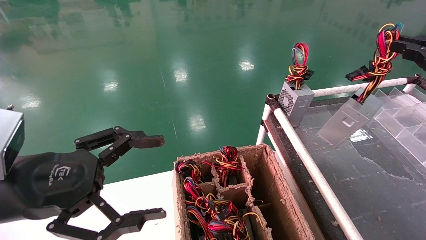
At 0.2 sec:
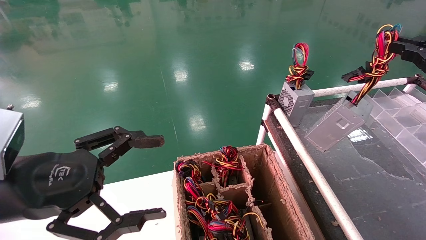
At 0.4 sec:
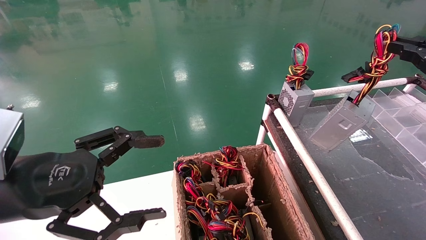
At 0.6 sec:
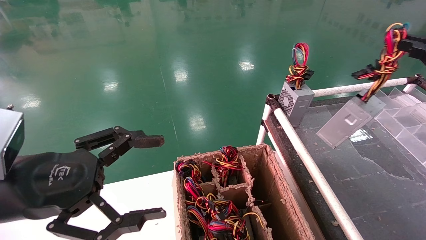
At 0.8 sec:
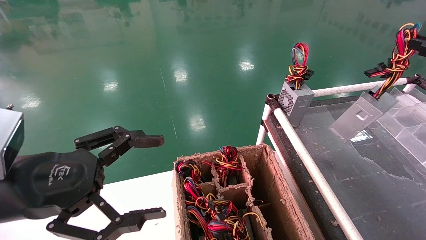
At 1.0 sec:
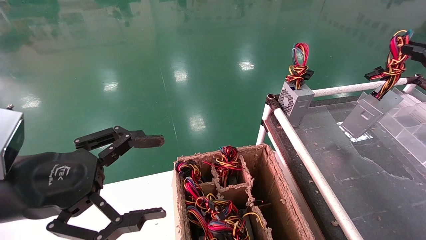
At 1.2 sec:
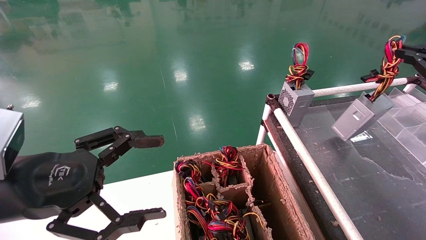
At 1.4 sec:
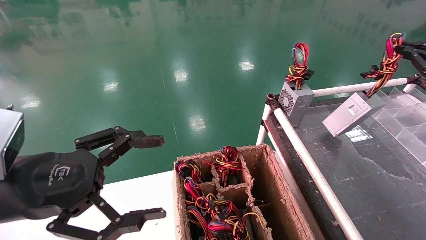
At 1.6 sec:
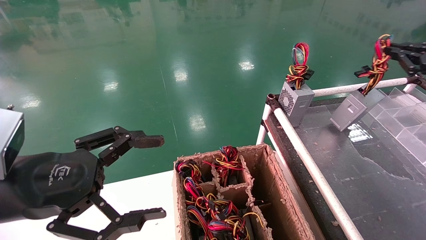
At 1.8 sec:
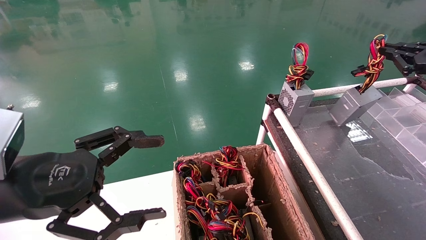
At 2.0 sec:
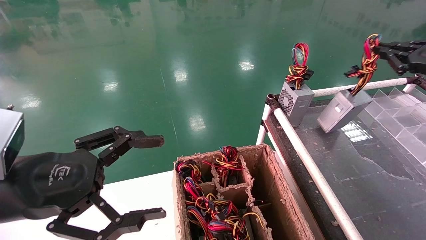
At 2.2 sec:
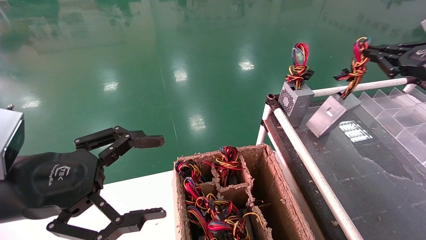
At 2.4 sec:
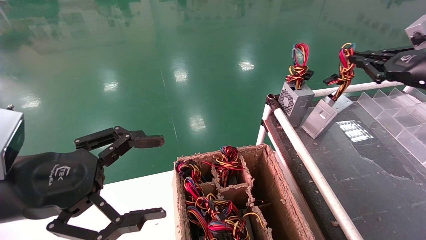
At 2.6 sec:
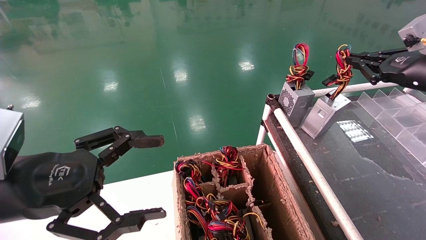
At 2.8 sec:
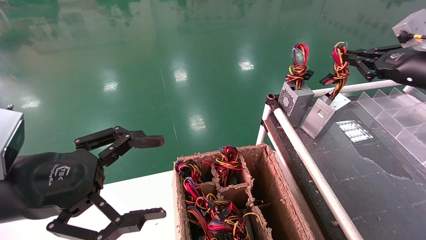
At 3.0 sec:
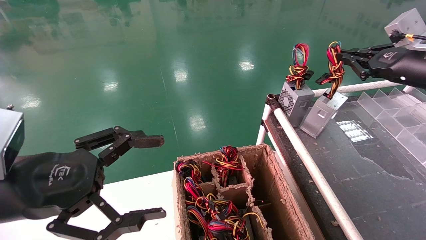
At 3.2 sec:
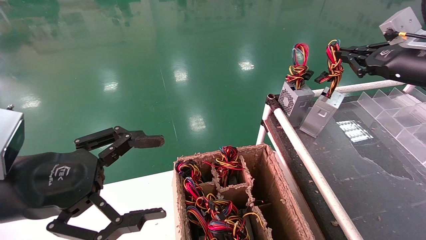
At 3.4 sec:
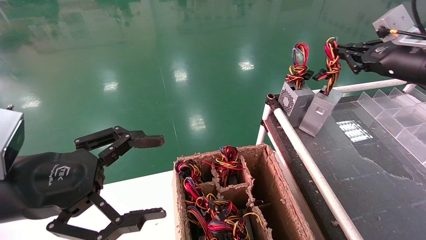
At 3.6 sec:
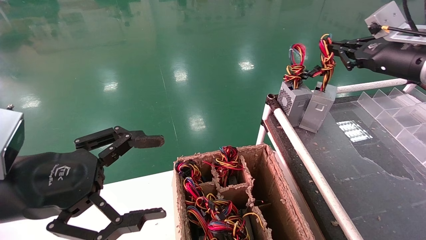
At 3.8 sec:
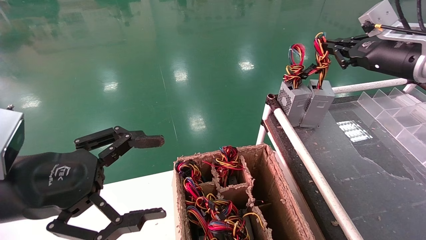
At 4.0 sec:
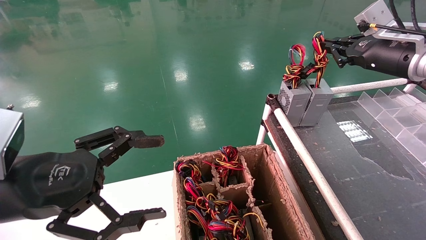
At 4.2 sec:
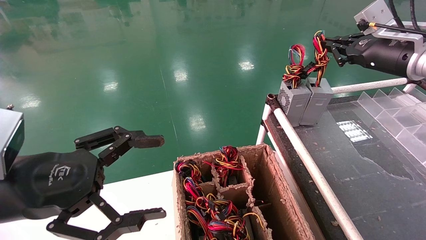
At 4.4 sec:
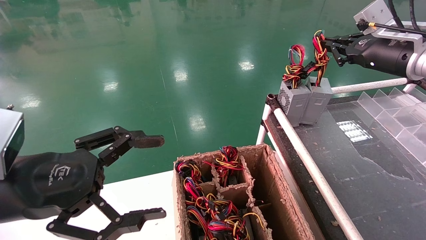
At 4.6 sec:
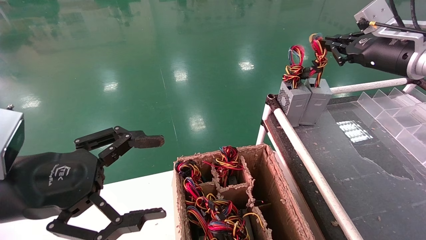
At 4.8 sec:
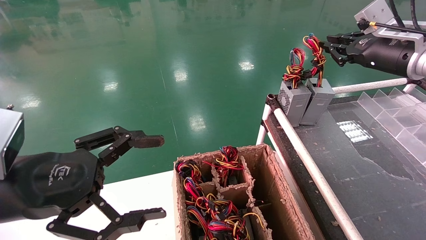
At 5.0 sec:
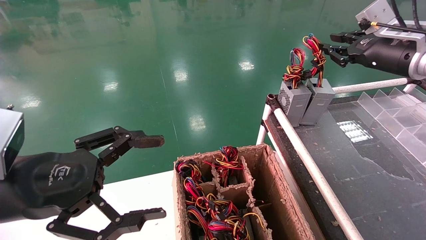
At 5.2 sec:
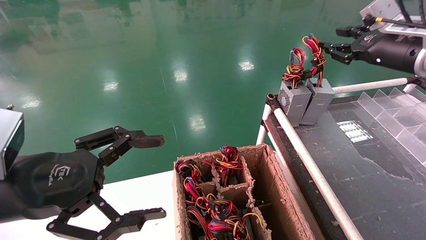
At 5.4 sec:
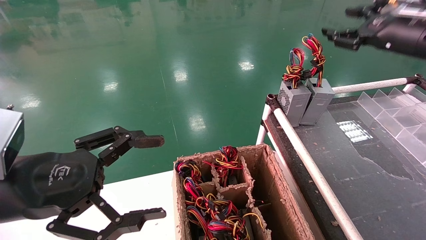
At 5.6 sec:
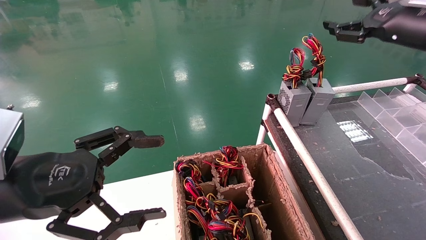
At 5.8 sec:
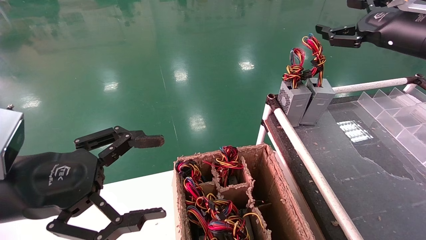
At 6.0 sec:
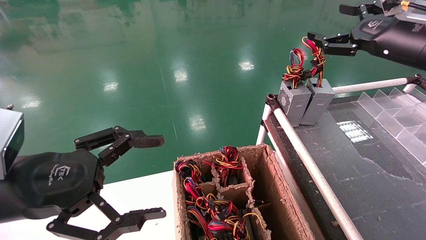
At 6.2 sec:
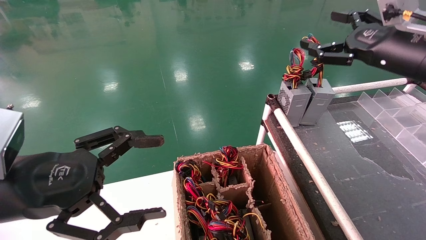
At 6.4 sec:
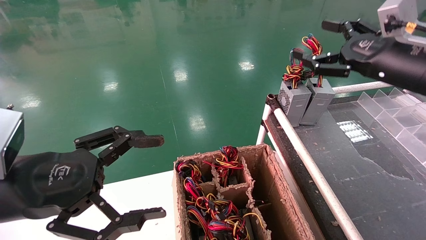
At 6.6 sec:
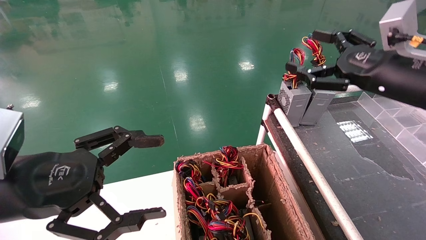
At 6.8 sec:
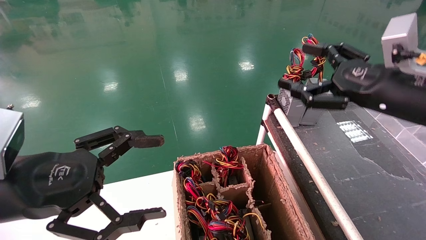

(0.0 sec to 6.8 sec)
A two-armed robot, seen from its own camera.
Step, 0.0 sec - 4.6 sec: Place the power supply on the operating table.
0.0 sec - 1.4 sec: The right gripper is displaced forward by some 10 cm.
1.4 sec - 2.8 sec: The right gripper moves to the left, roughly 5 cm.
2.8 sec - 4.0 sec: The right gripper changes place by about 5 cm.
4.0 sec - 5.4 sec: The right gripper opens up.
5.4 sec - 6.8 sec: The right gripper moves backward, downward and to the left, roughly 15 cm, and opens.
